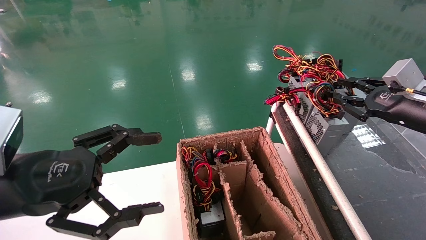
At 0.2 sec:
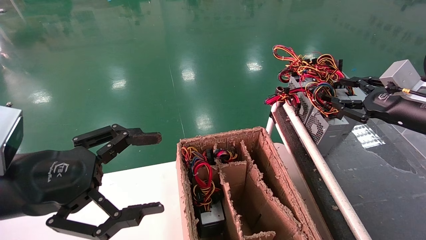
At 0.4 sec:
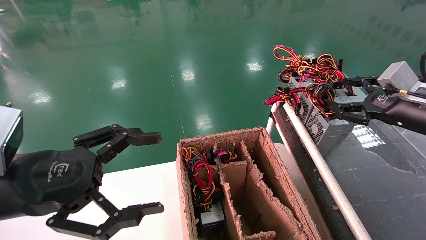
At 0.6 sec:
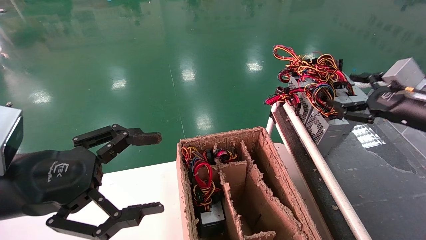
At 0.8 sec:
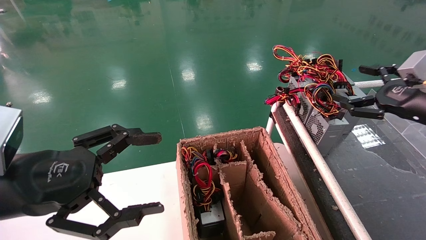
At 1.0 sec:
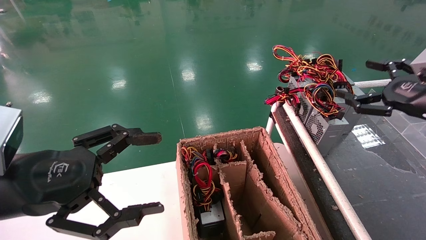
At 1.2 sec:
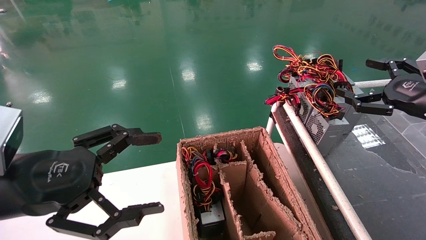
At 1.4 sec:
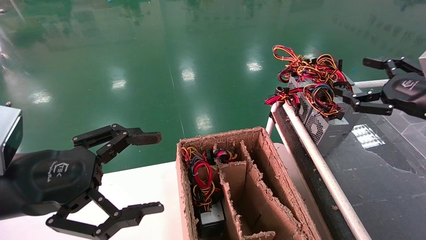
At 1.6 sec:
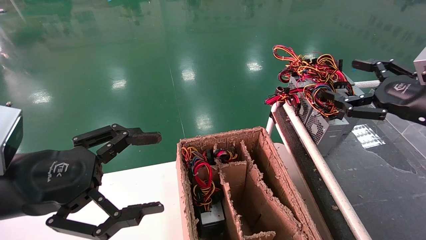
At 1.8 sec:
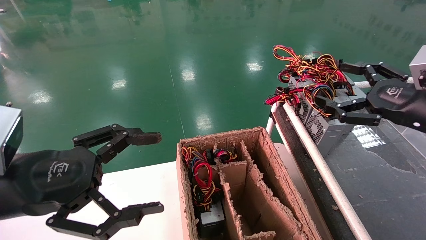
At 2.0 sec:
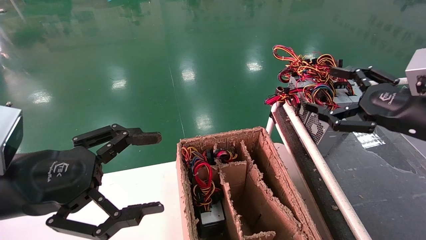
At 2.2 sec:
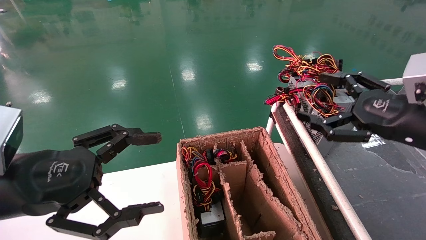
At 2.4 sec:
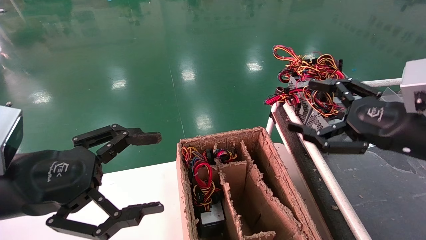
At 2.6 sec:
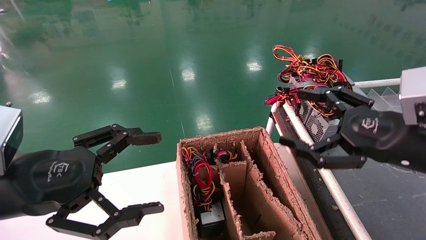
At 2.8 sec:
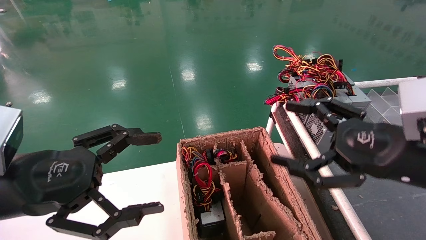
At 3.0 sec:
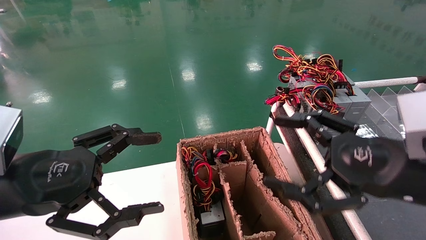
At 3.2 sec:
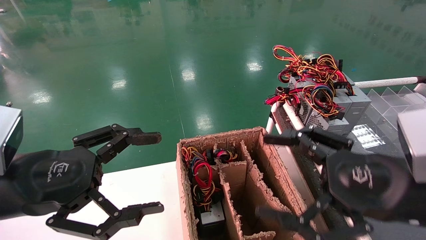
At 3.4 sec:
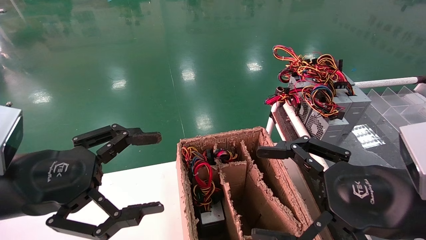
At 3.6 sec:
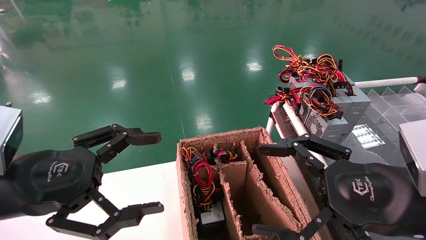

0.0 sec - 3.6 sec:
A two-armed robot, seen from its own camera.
0.0 sec - 1.8 sec: The right gripper heads backward, covering some 5 cm, and opens.
1.8 sec - 3.6 sec: The right gripper moves to the left and backward, some 15 cm.
